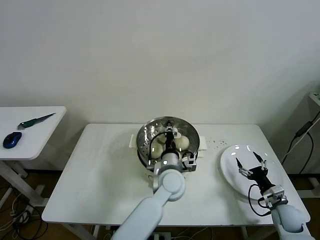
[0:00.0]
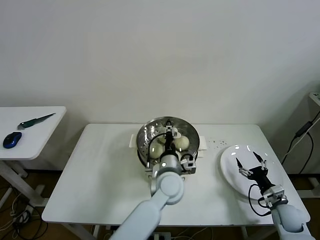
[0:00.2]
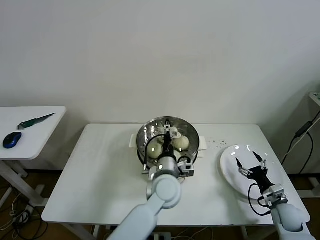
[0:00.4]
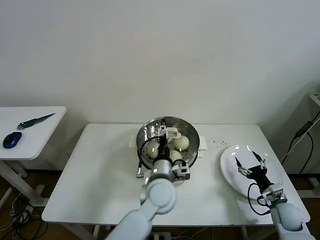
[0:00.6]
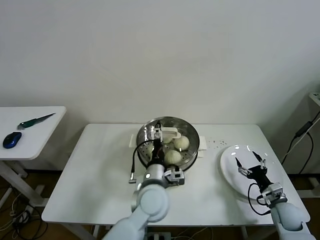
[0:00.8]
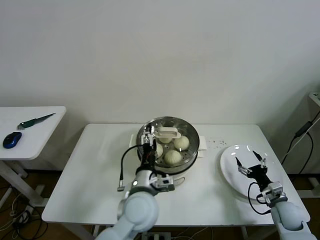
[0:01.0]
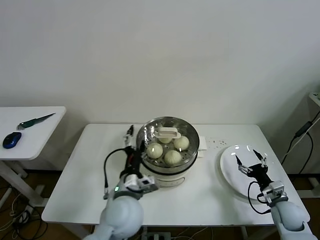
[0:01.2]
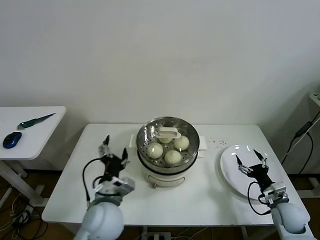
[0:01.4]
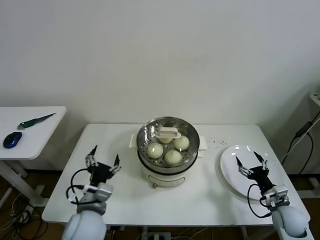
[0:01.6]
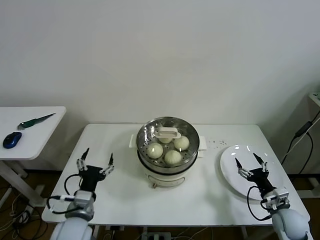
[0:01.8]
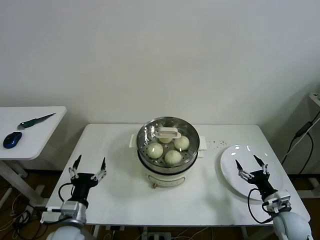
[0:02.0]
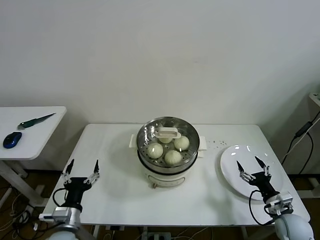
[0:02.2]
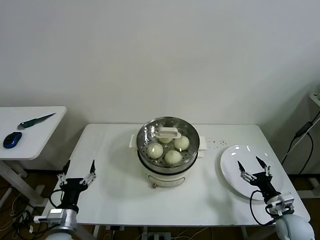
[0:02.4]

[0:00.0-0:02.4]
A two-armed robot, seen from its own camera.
Task of the whole recording: take steamed baozi put them in steamer then cover it.
0:00.0 to 0:01.2: The left gripper heads to the left and backward, covering roughly 15 cm, and opens.
0:01.2 to 0:02.4: The left gripper moves to the left and downward, approximately 25 cm.
